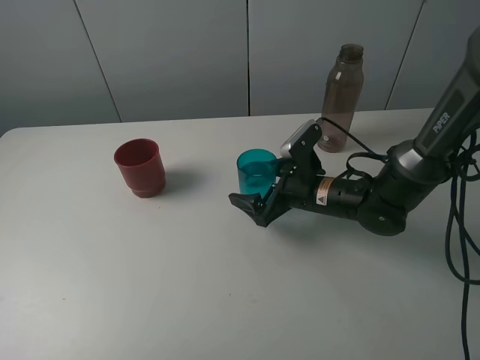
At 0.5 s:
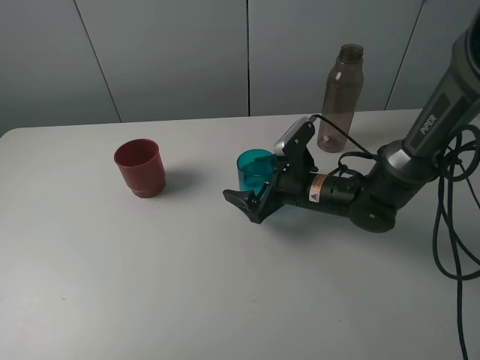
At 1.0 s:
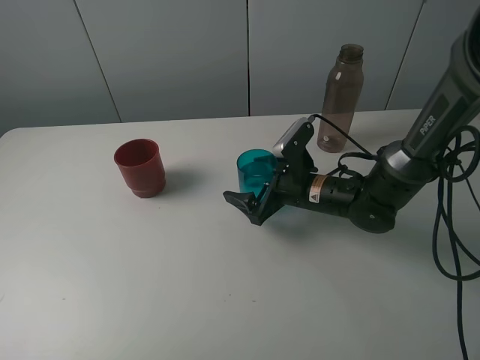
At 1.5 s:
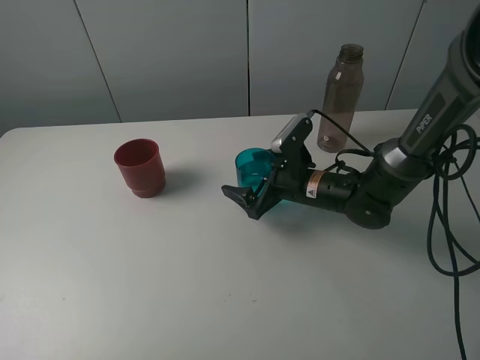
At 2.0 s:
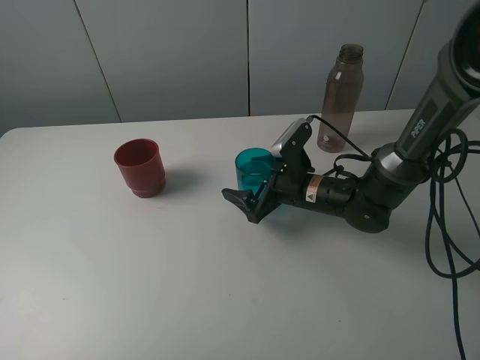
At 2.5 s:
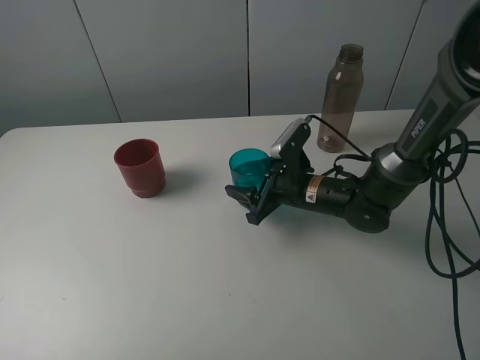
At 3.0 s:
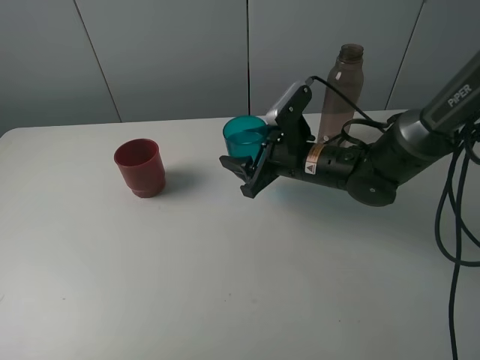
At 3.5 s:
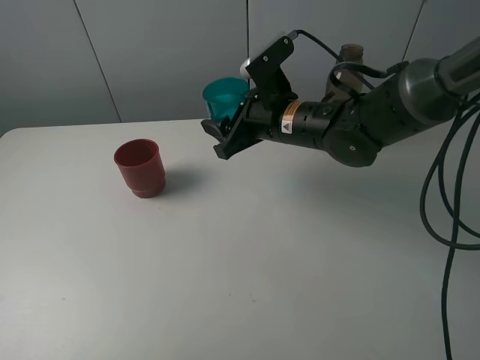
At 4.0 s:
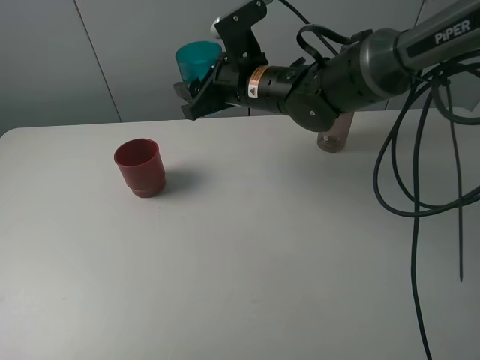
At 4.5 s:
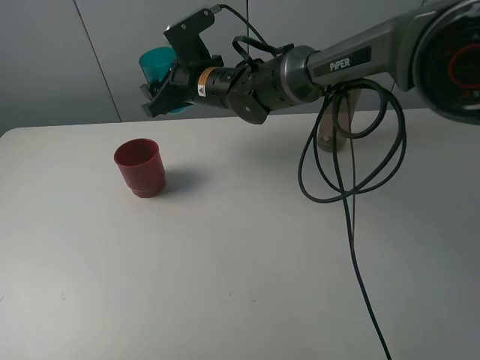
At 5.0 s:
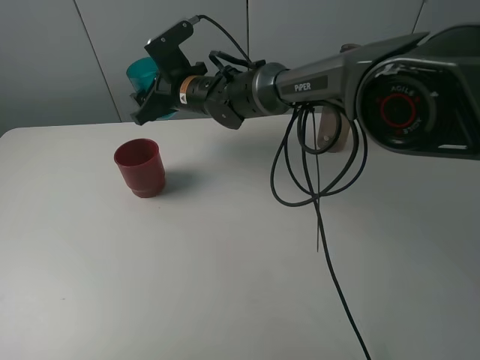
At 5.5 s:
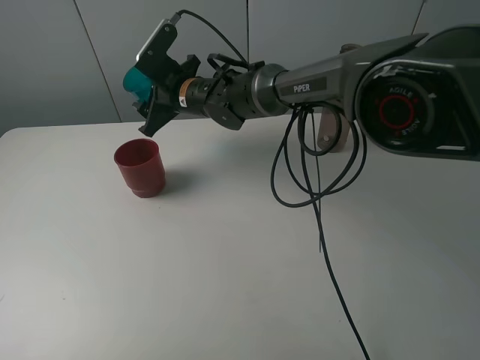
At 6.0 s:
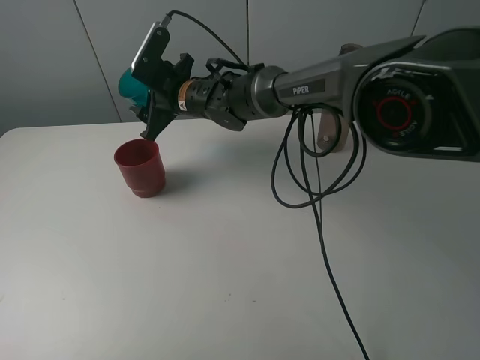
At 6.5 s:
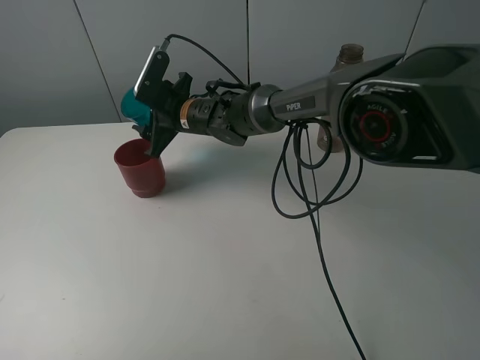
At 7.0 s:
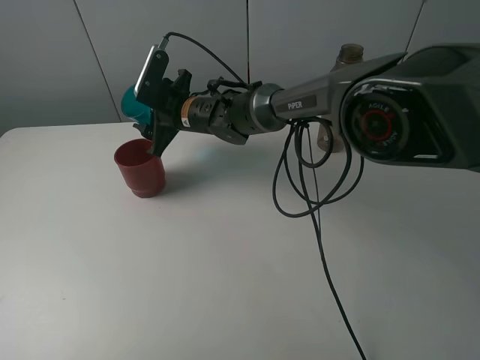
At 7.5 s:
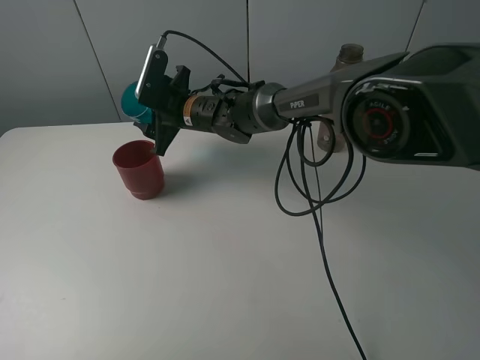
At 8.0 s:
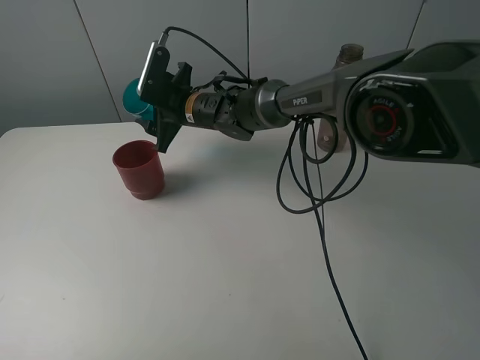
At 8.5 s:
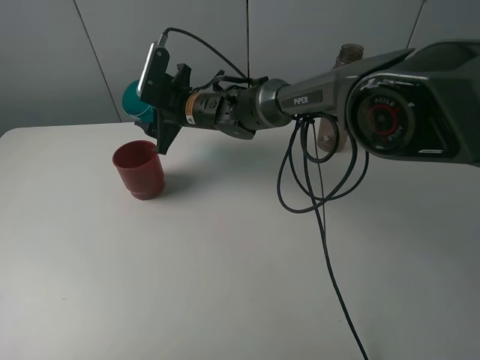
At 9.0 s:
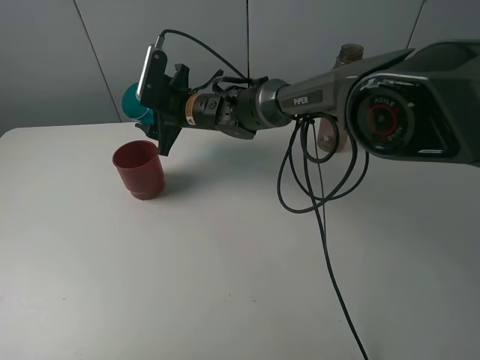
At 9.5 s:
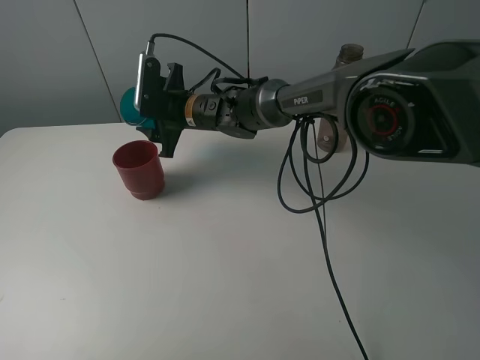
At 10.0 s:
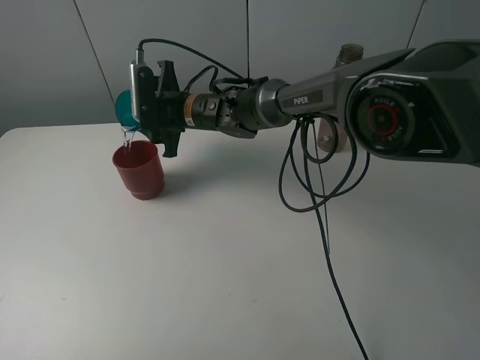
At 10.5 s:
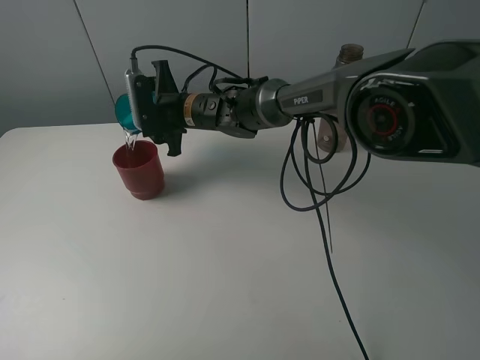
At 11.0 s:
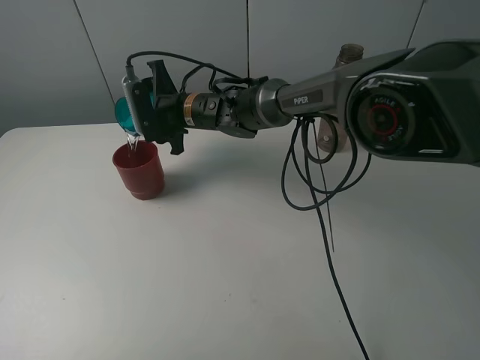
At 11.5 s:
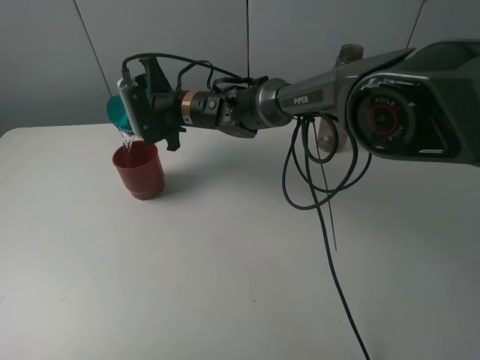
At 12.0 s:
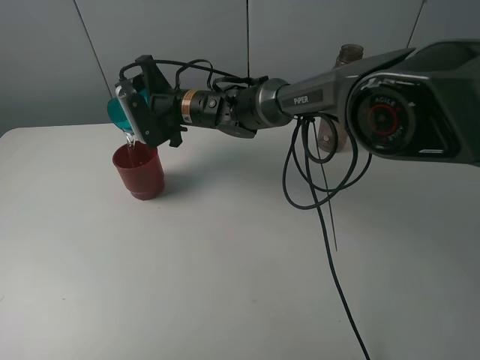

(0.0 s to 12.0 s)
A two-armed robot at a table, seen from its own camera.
Task of the whole recording: pick up the bottle and pour water into the cup, then pick up the cup containing water and pour it into another cup.
Step, 0.0 s - 2.0 s: Grasp the blue cup with the right gripper.
0.0 s - 2.0 s: The grippers make only small movements.
2.0 s - 4.0 s: The right gripper goes some 15 cm upward and to the left, and closes its fingers.
4.0 s - 6.0 s: The right gripper goes about 10 cm to the left and forward.
6.0 s - 8.0 s: The grippers move only a little.

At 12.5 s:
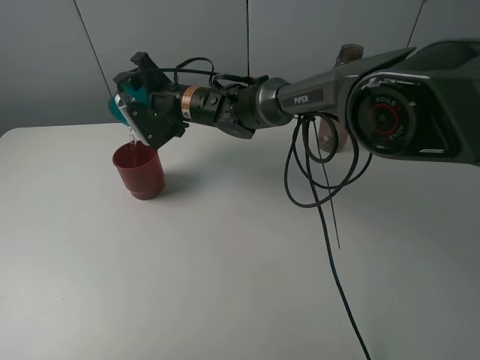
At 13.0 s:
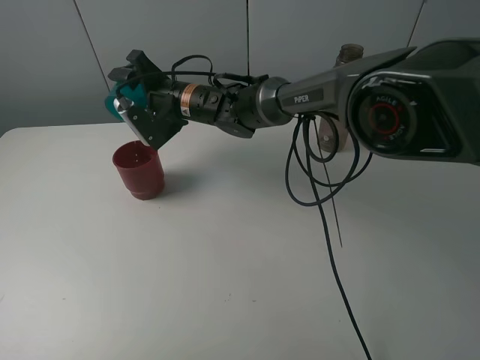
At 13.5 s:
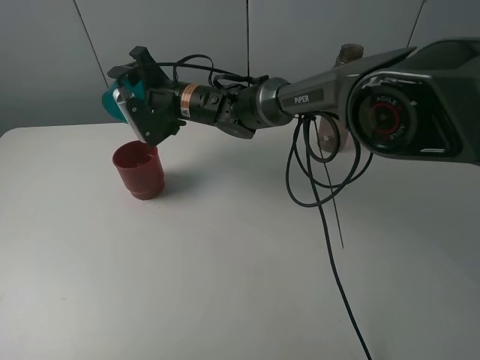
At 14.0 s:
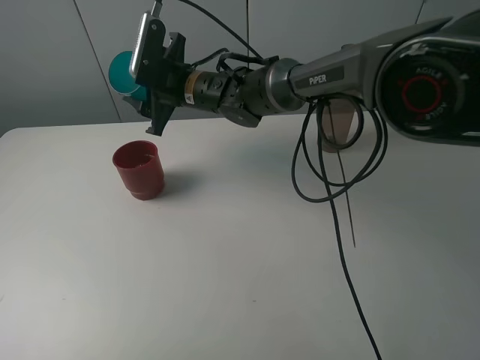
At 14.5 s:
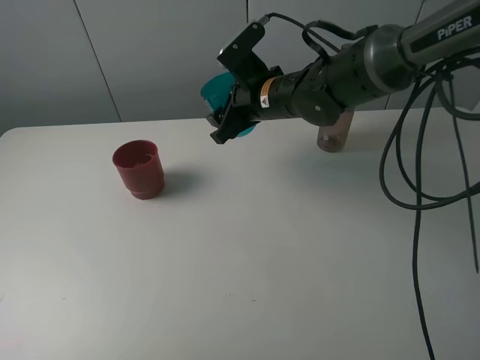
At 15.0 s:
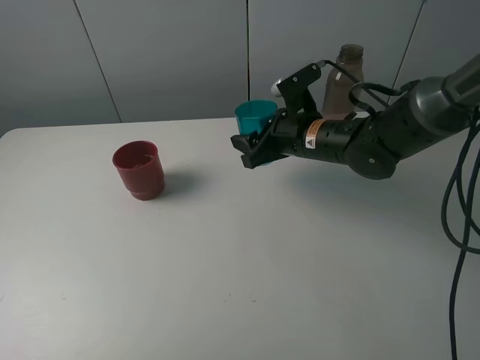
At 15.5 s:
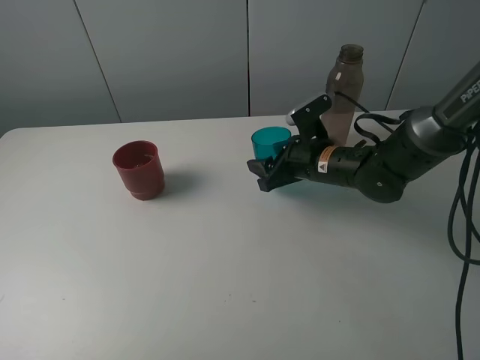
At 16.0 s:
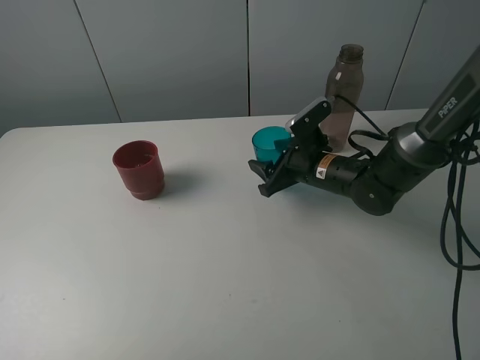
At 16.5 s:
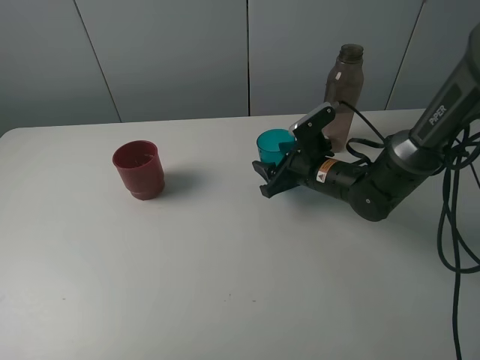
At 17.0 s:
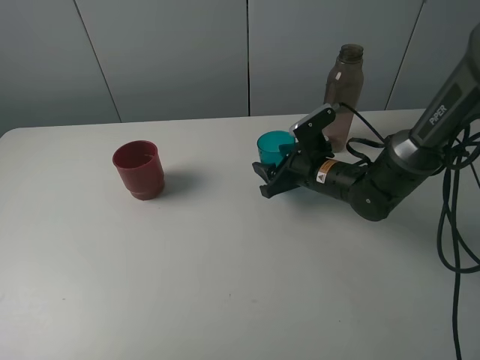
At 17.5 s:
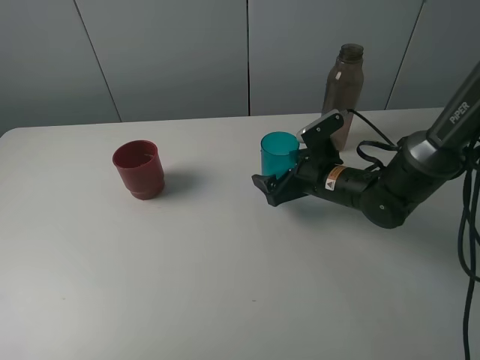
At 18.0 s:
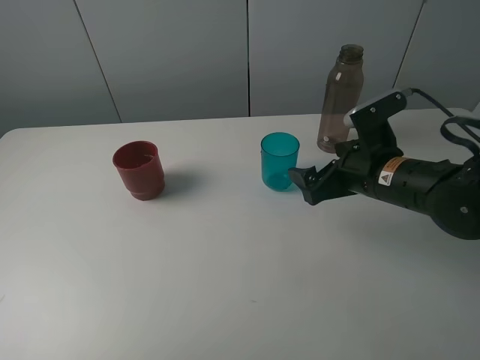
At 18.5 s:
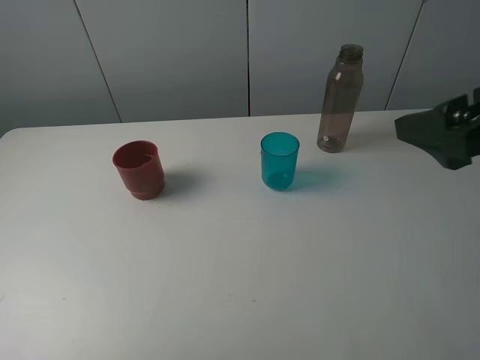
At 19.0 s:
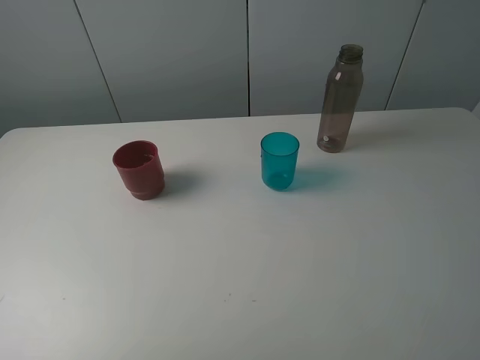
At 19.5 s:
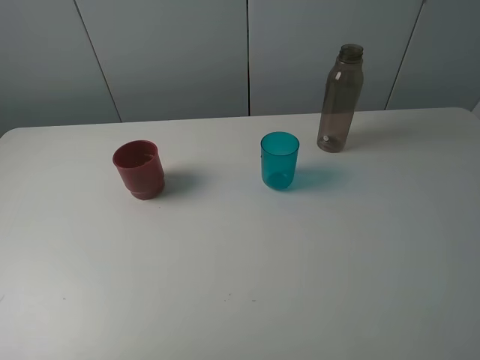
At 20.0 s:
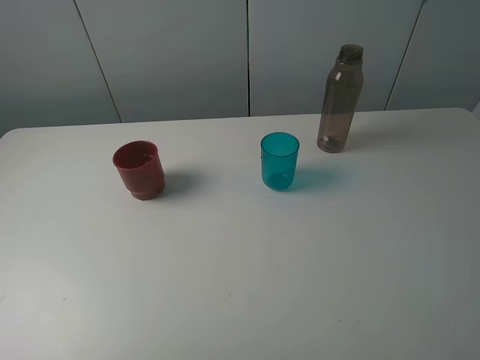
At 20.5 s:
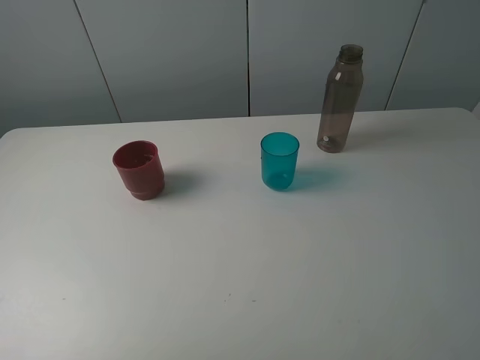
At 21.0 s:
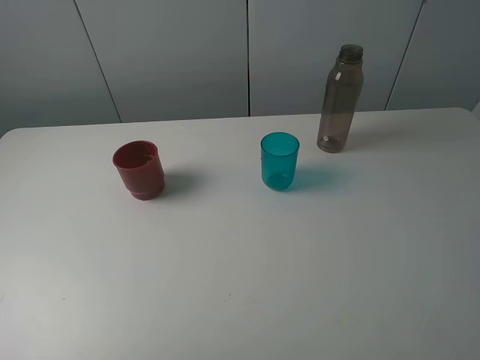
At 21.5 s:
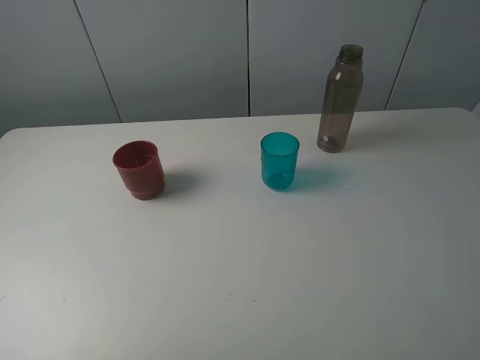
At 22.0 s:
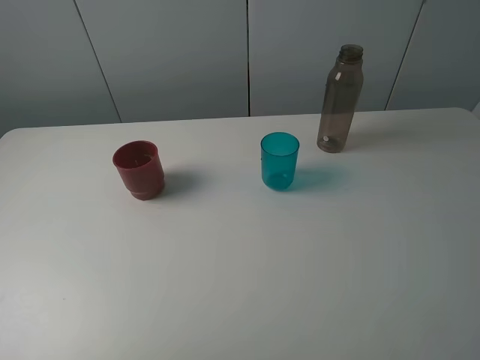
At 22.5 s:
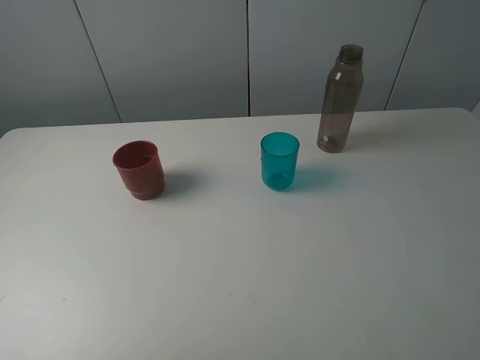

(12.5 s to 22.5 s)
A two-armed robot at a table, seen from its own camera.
Task of the whole recording: pick up the bottle and pour water into the cup, then pick up the cup containing water and pour it into another cup.
Step, 14.0 s - 17.0 s: Place the blue cup with the right gripper.
12.5 s - 14.5 s: The right gripper moves to the right, approximately 15 cm.
14.5 s - 16.5 s: The right gripper travels downward and to the right by approximately 15 cm.
16.5 s - 18.5 s: The right gripper heads upward, backward and to the right, covering about 35 cm, and opens its fingers.
18.5 s - 20.5 s: The right gripper goes about 15 cm backward.
